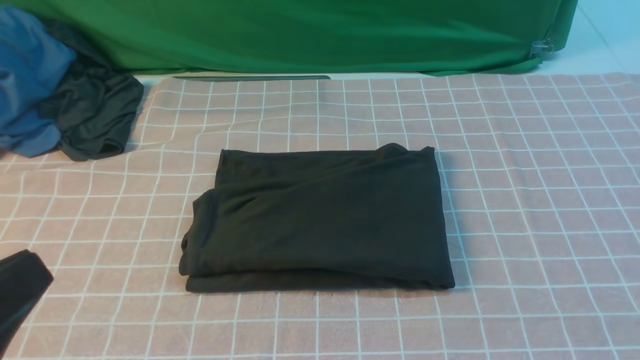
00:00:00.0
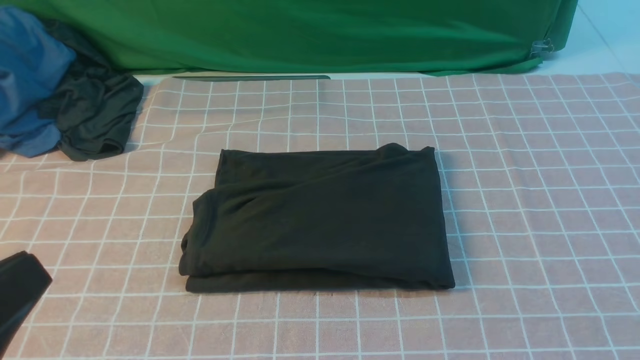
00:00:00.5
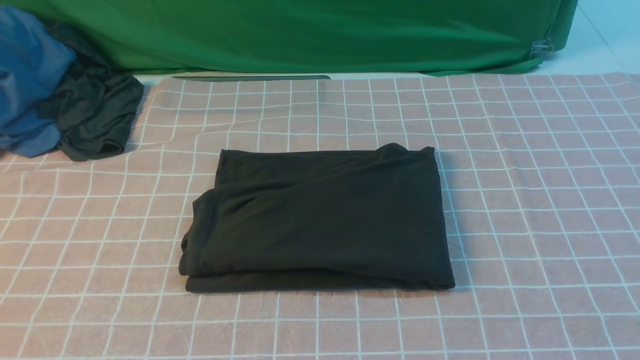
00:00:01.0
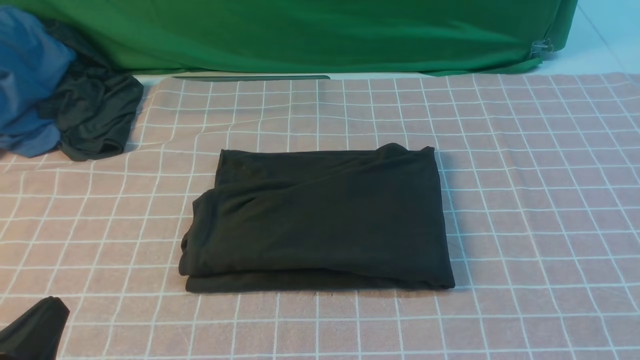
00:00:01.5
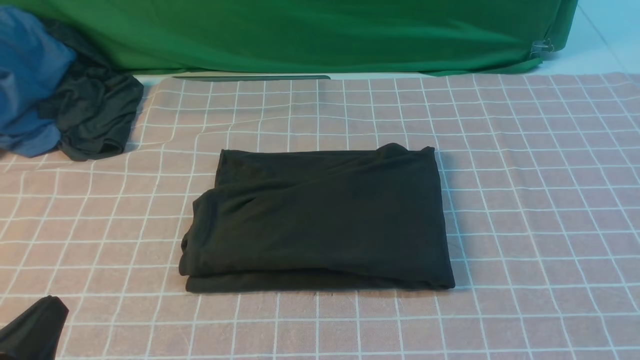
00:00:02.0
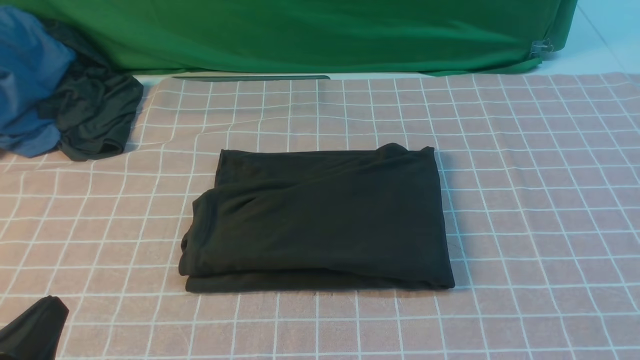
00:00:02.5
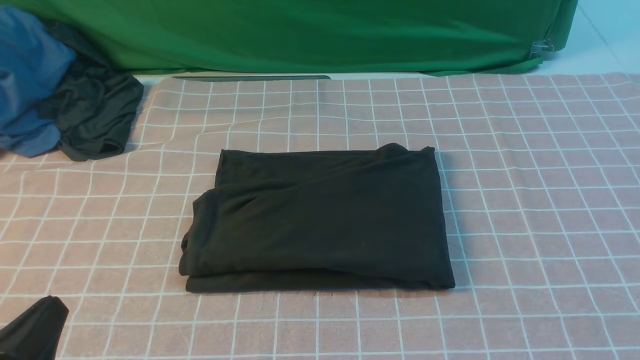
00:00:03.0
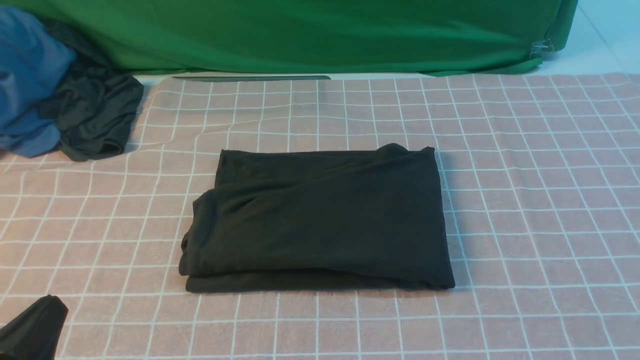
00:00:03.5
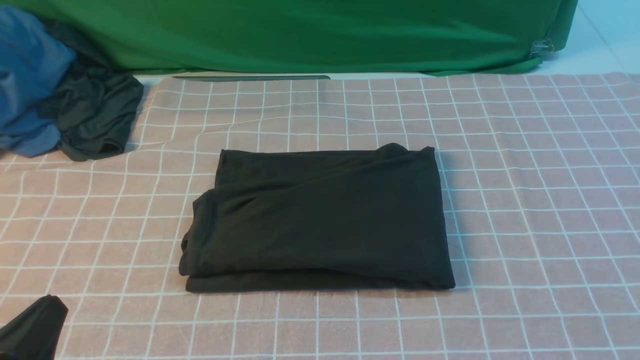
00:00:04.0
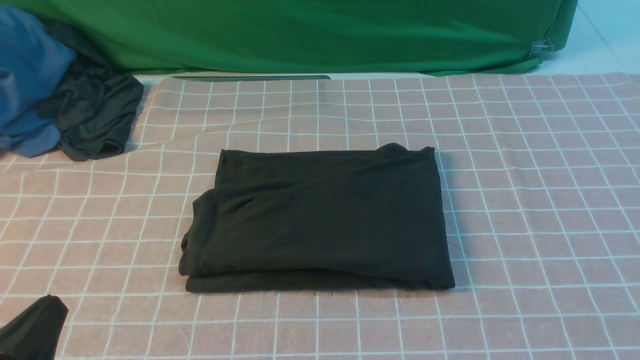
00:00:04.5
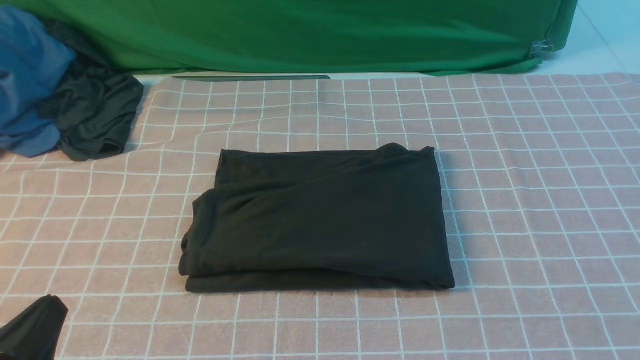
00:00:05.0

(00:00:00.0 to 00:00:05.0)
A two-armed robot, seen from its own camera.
00:00:00.0 - 00:00:02.5: The left gripper is displaced downward by roughly 15 cm.

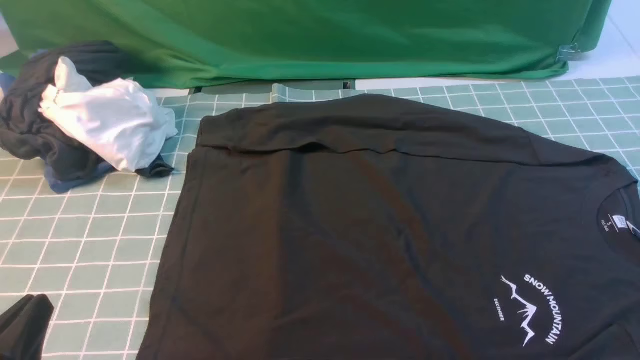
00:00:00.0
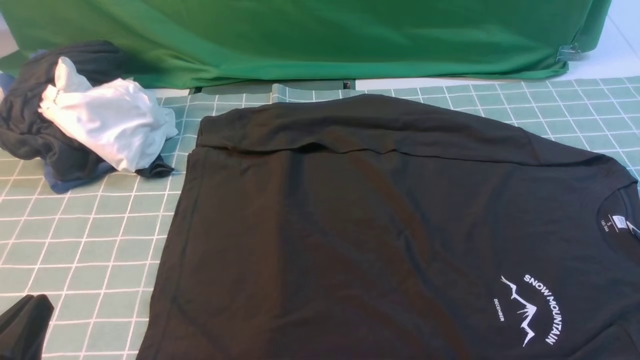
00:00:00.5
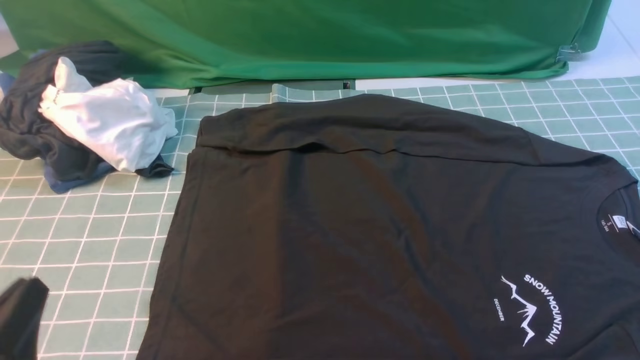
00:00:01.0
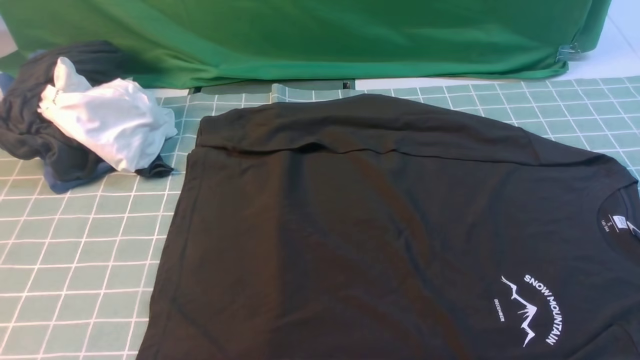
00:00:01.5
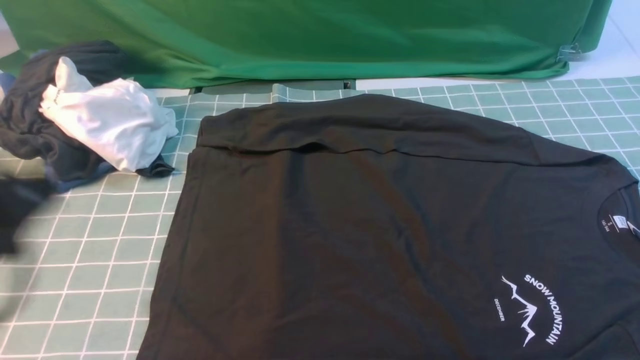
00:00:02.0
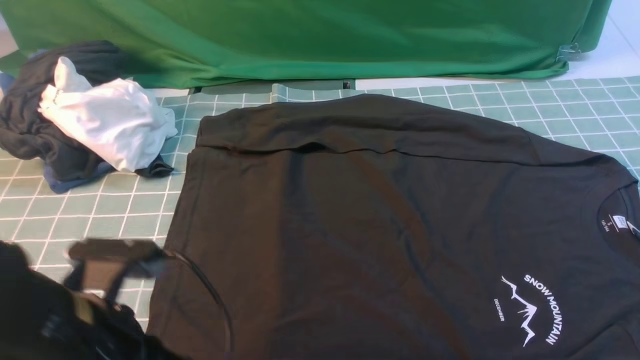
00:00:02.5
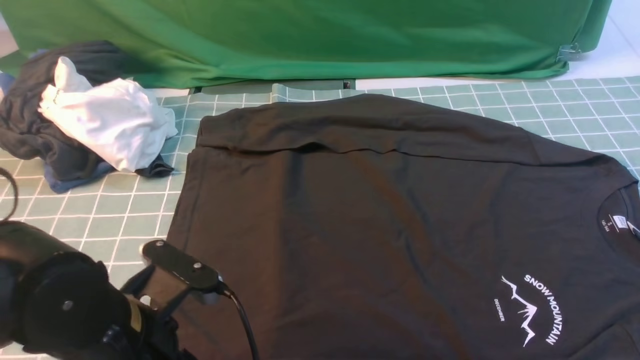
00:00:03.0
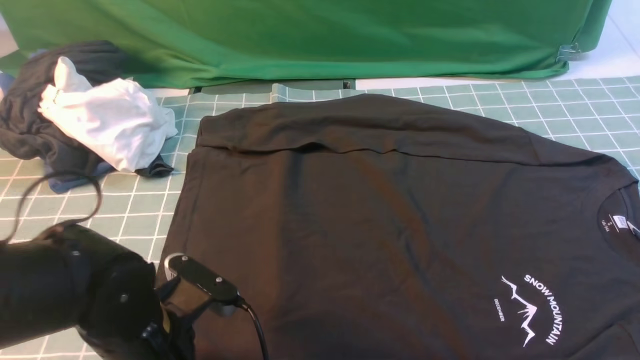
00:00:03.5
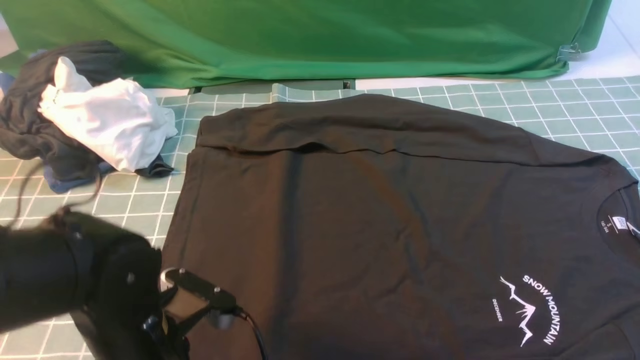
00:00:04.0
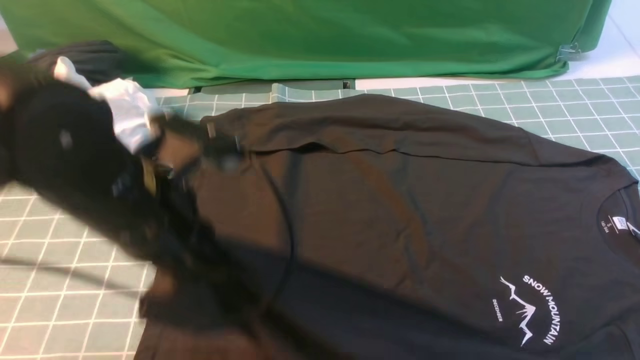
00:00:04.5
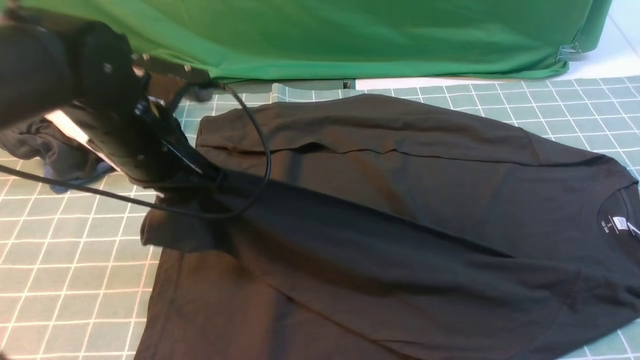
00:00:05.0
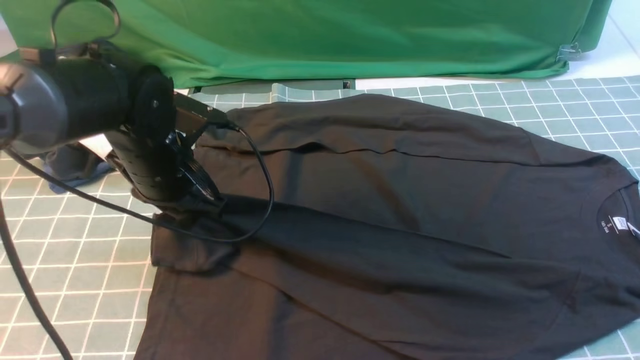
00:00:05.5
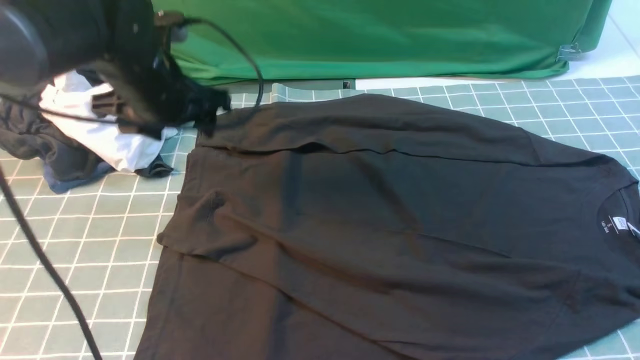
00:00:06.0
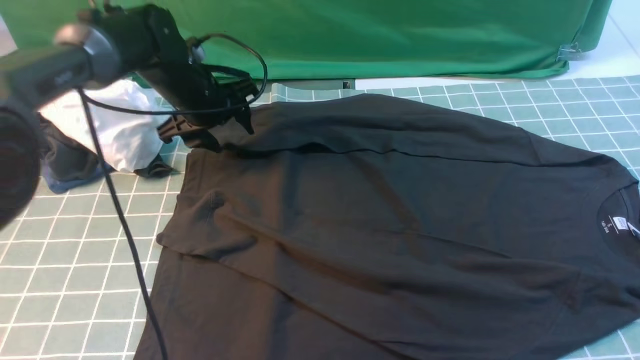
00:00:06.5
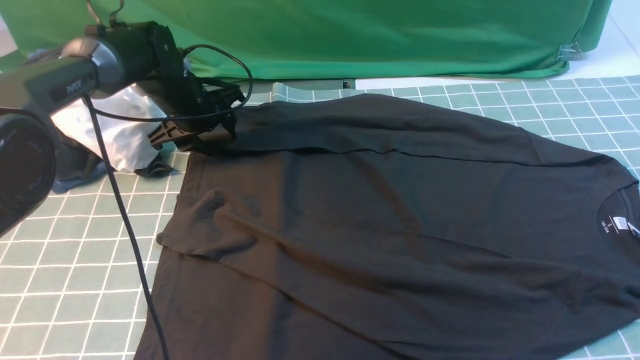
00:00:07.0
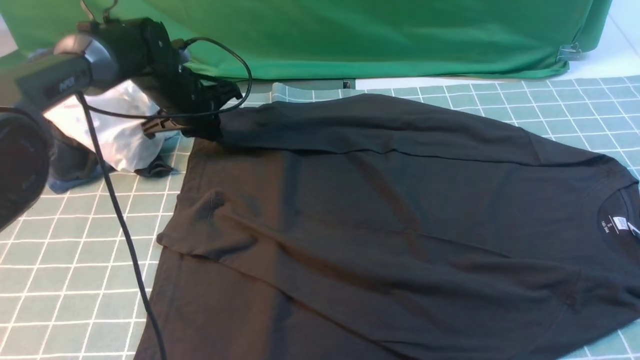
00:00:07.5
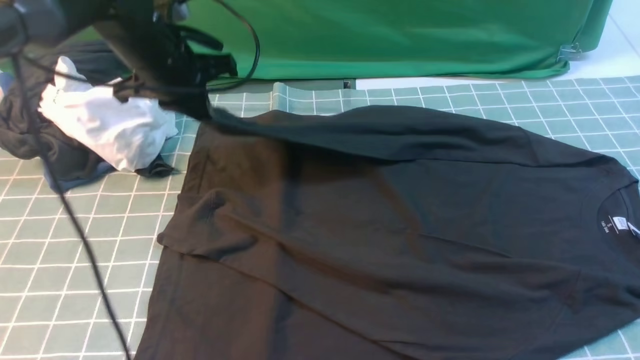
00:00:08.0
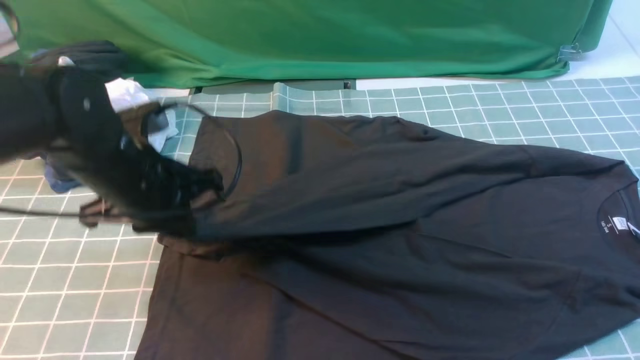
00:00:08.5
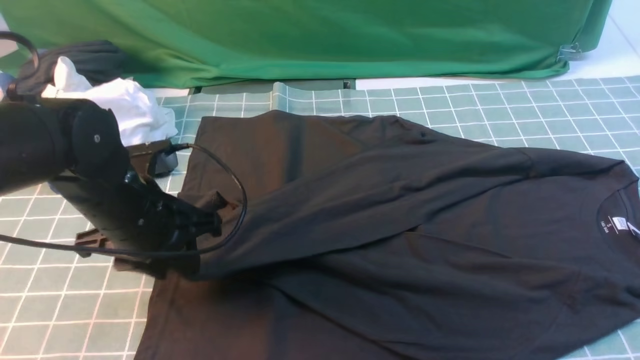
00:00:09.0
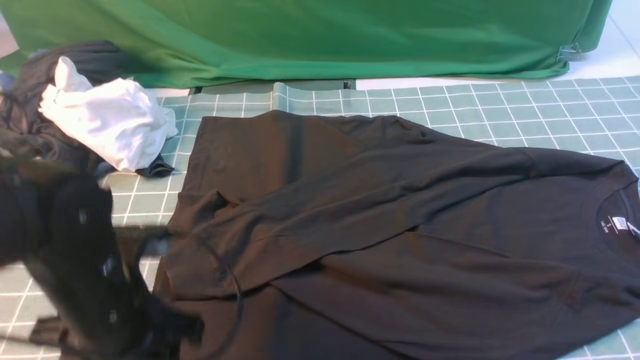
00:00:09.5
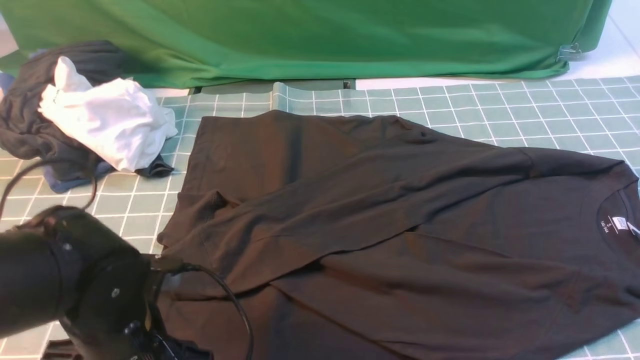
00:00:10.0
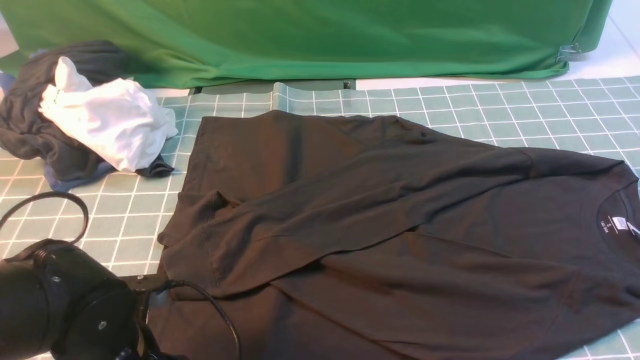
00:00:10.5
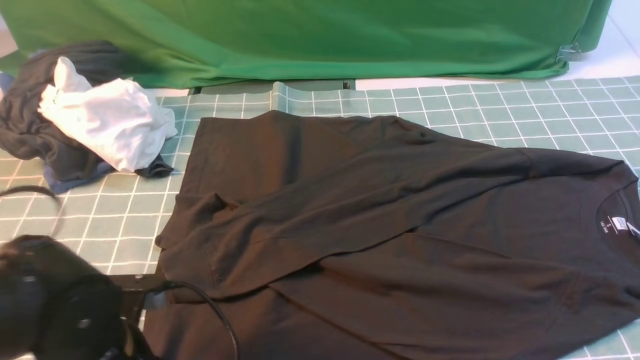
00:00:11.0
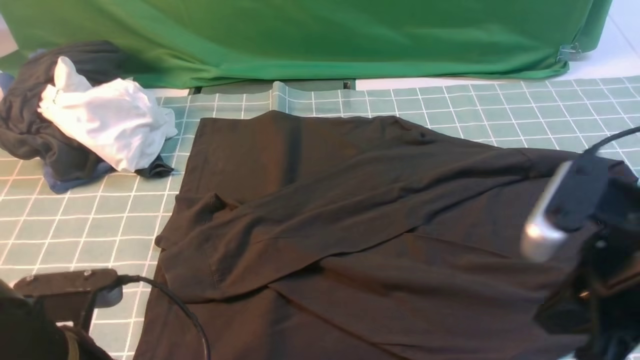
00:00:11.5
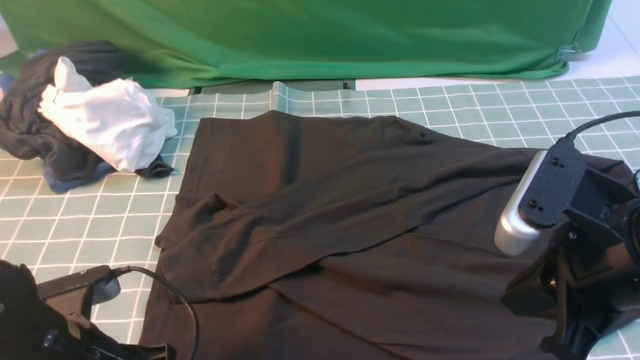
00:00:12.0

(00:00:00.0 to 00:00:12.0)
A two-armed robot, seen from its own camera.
Step, 00:00:00.0 - 00:00:04.0: use the left arm to clamp the cuff closest to it.
Step, 00:00:04.5 - 00:00:05.5: use the left arm to drag and place the cuff at the centered position on the left edge of the fabric.
Step, 00:00:06.0 - 00:00:07.5: use the left arm to clamp the cuff farthest from it.
Step, 00:00:08.0 - 00:00:09.0: use the left arm to drag and drop the cuff onto the cuff closest to the left arm.
00:00:00.0 - 00:00:02.0: The left gripper moves upward and forward, about 15 cm.
00:00:02.0 - 00:00:04.0: The right gripper travels upward and forward by some 10 cm, while the left gripper heads downward and to the right, covering approximately 15 cm, and opens, then closes again.
00:00:04.0 - 00:00:06.0: The left gripper travels forward by about 25 cm, and opens.
00:00:06.0 - 00:00:08.0: The left gripper reaches about 10 cm downward, then returns, and closes up.
00:00:08.0 - 00:00:10.0: The left gripper is displaced backward by roughly 25 cm, and opens.
00:00:10.0 - 00:00:12.0: The right gripper is displaced to the left and downward by approximately 10 cm. The left gripper closes.

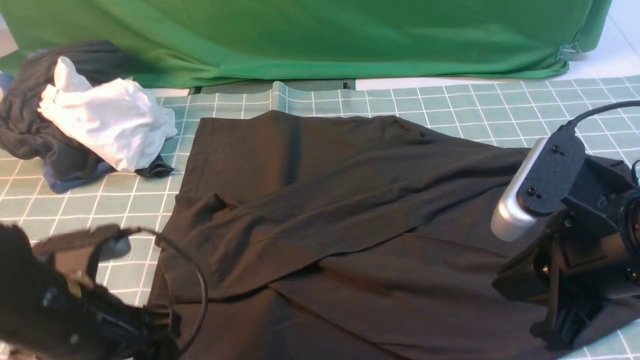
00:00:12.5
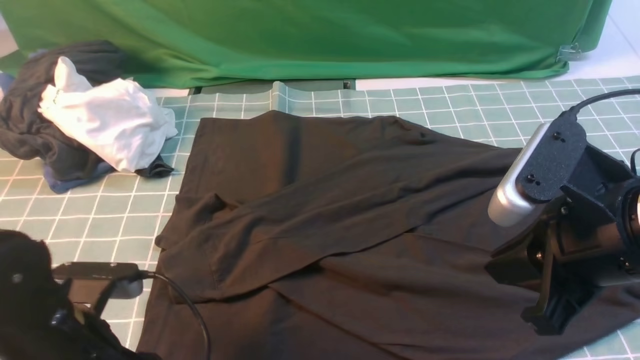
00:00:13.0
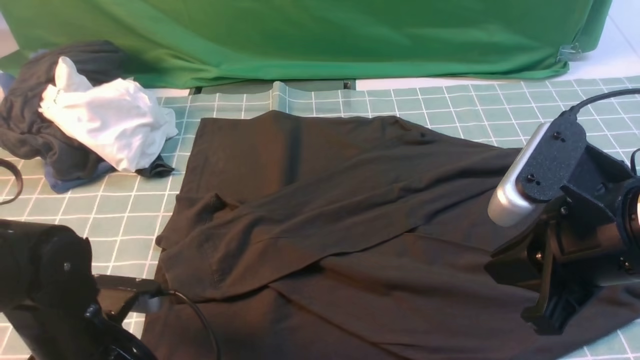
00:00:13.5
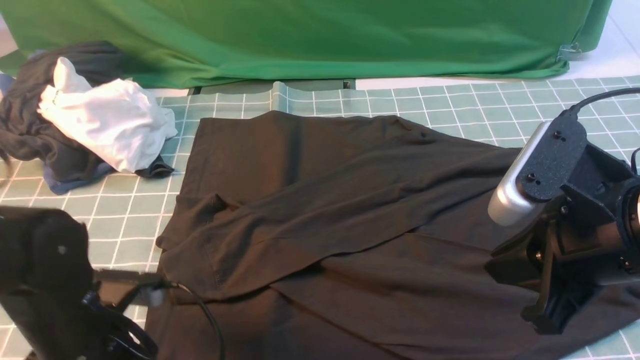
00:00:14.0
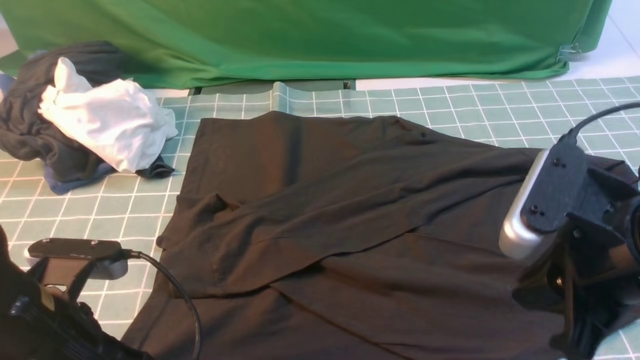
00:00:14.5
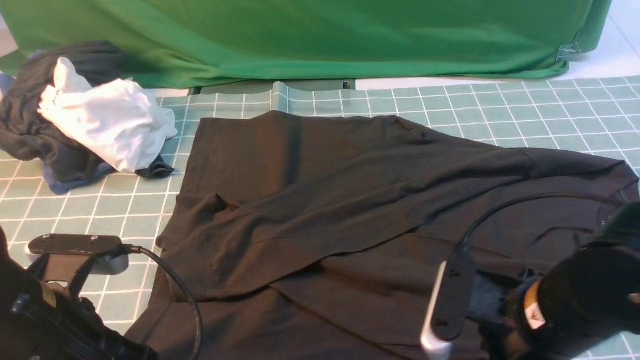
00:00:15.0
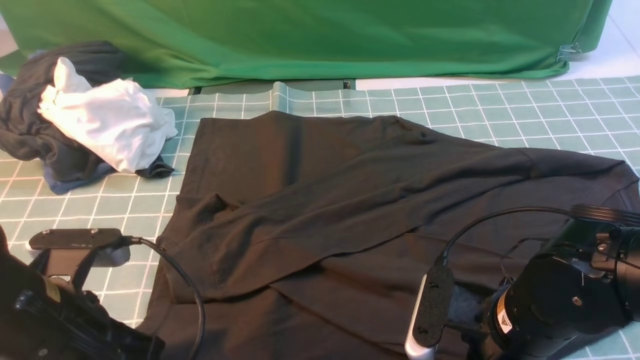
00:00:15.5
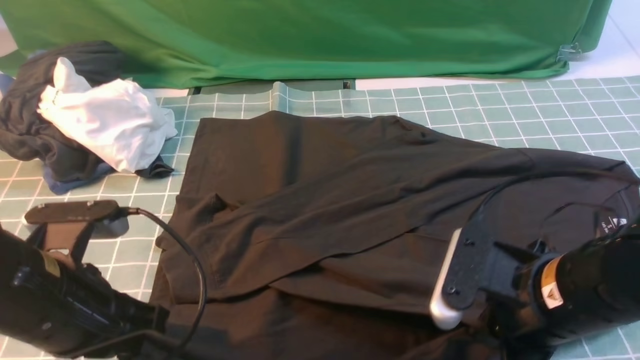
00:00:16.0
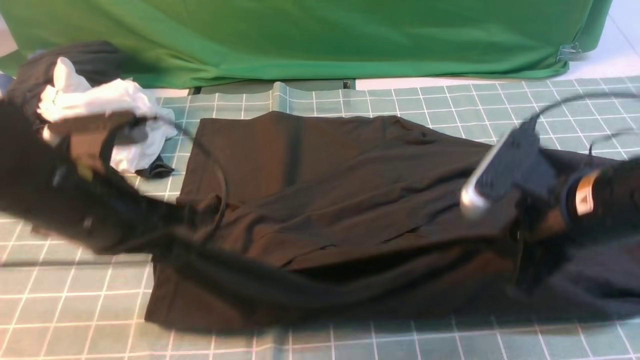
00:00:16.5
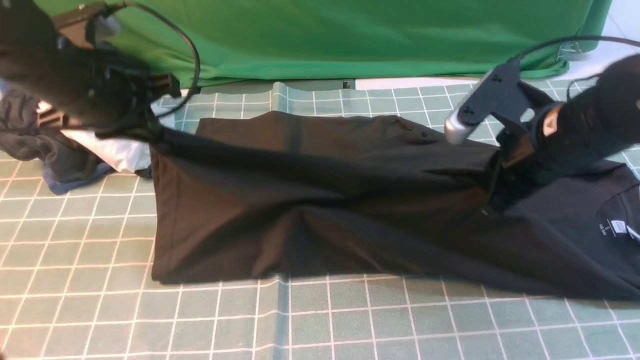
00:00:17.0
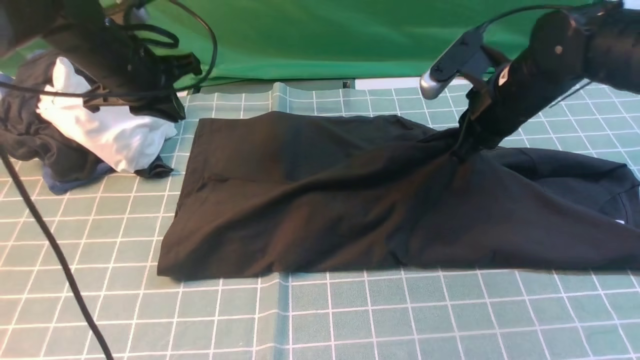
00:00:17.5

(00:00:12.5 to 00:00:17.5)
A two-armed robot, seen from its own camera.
Step, 00:00:12.5 - 00:00:16.0: use both arms simultaneously to clamp the lower edge of the clothing fabric.
00:00:12.5 - 00:00:15.0: The right gripper moves downward, about 10 cm, and opens. The left gripper closes up.
00:00:15.0 - 00:00:17.5: Both grippers travel together forward, approximately 25 cm. The right gripper closes up.
